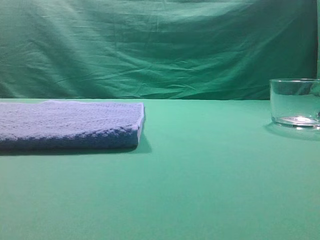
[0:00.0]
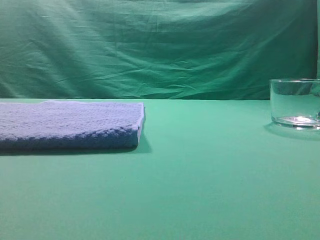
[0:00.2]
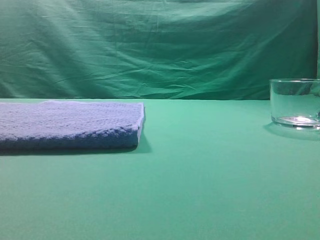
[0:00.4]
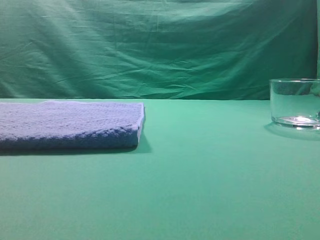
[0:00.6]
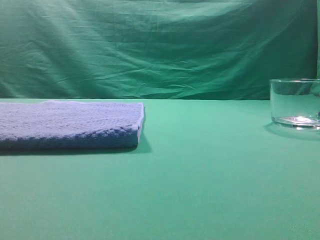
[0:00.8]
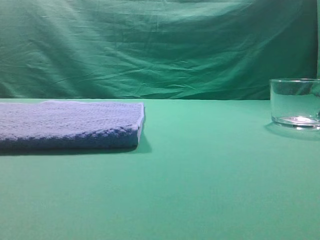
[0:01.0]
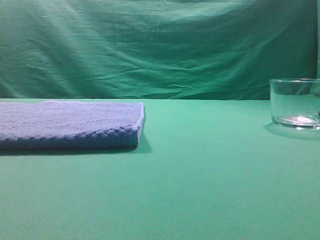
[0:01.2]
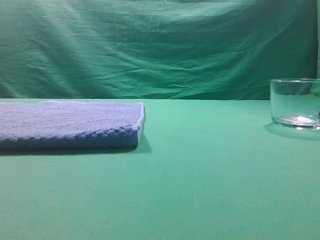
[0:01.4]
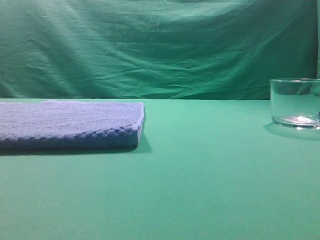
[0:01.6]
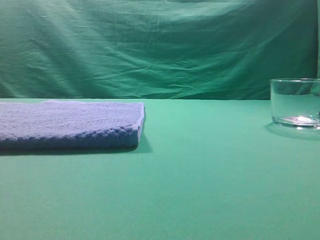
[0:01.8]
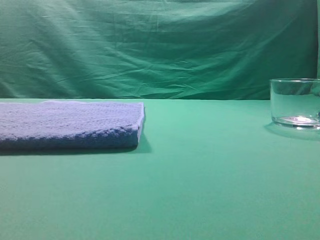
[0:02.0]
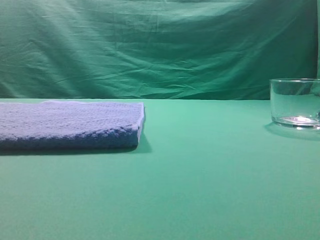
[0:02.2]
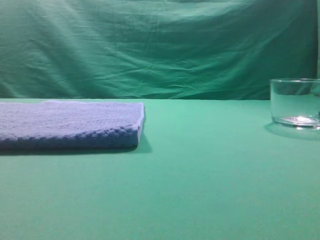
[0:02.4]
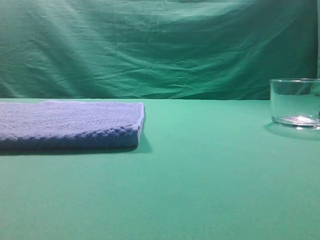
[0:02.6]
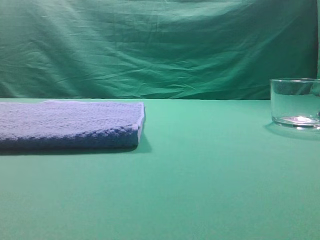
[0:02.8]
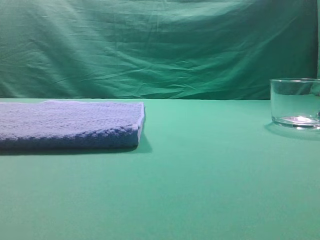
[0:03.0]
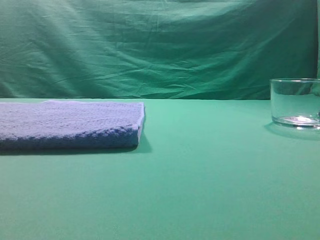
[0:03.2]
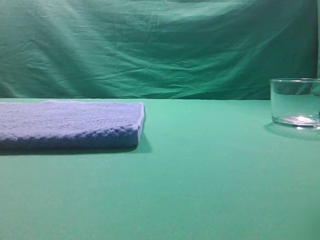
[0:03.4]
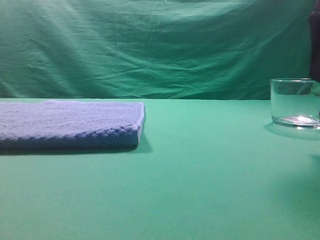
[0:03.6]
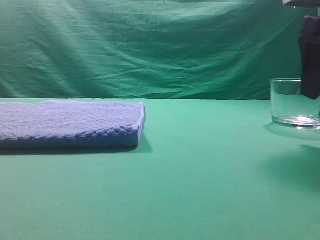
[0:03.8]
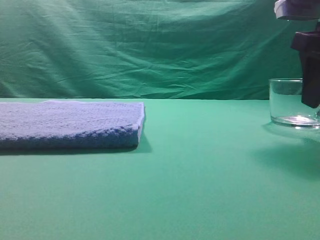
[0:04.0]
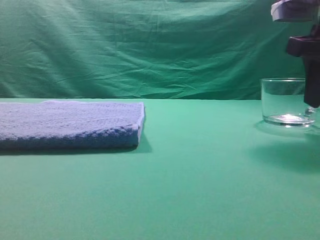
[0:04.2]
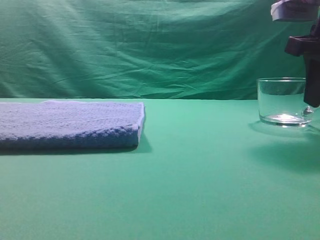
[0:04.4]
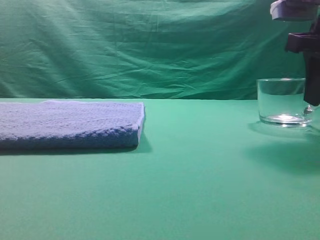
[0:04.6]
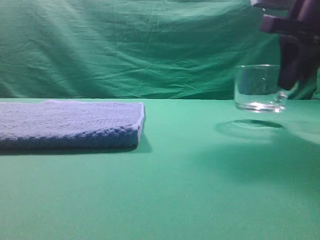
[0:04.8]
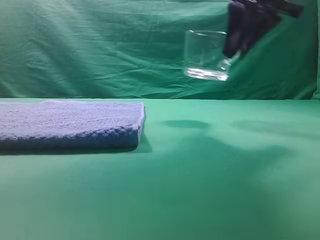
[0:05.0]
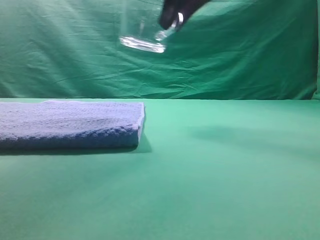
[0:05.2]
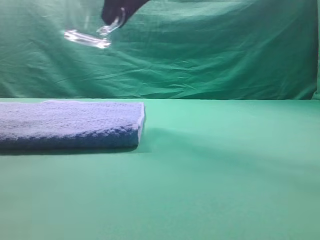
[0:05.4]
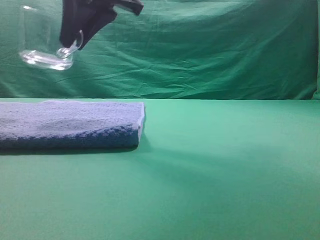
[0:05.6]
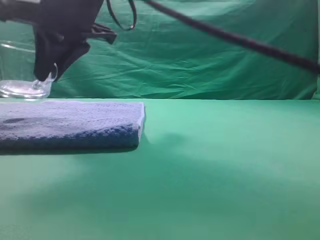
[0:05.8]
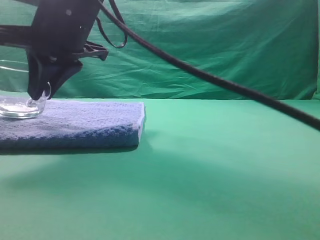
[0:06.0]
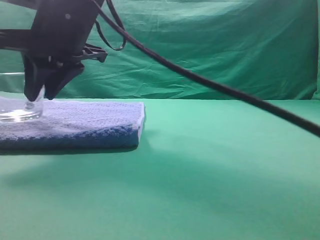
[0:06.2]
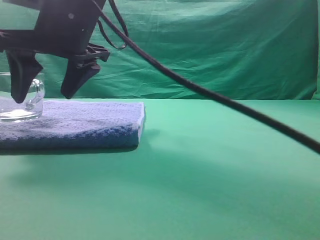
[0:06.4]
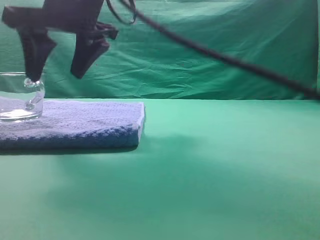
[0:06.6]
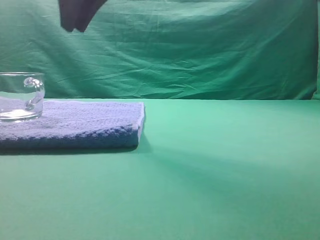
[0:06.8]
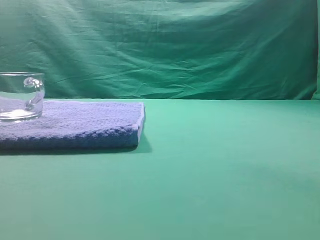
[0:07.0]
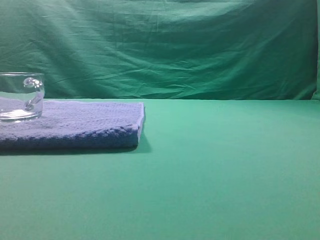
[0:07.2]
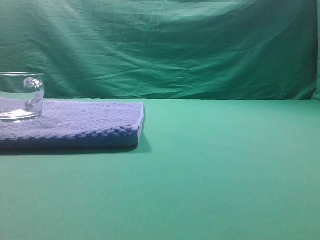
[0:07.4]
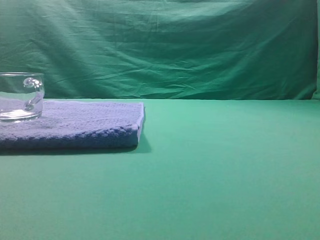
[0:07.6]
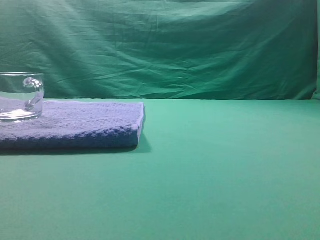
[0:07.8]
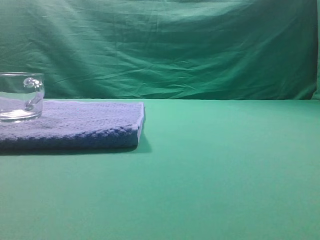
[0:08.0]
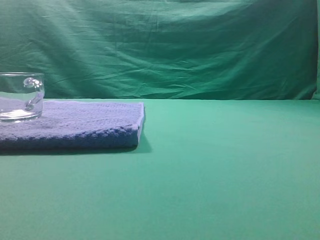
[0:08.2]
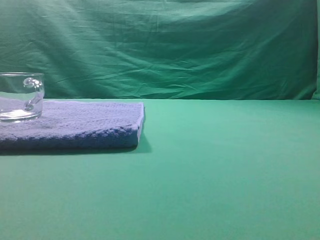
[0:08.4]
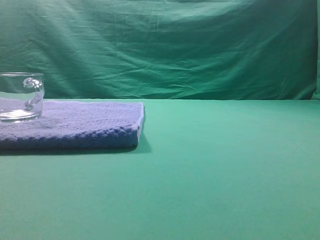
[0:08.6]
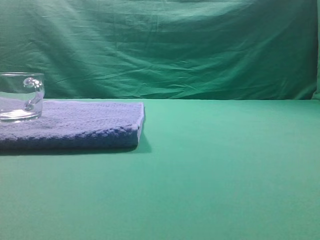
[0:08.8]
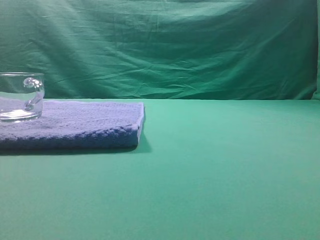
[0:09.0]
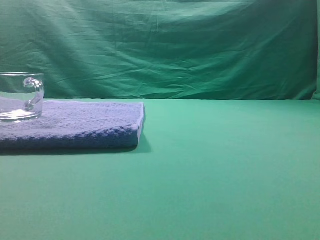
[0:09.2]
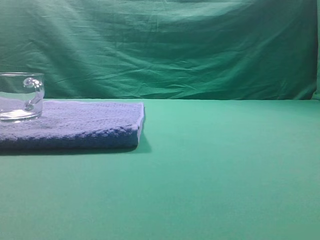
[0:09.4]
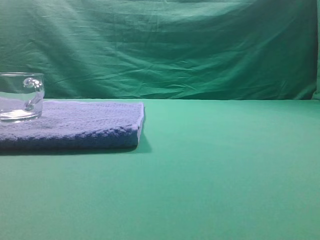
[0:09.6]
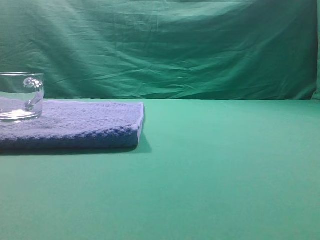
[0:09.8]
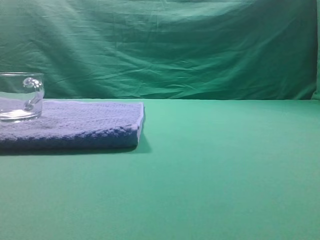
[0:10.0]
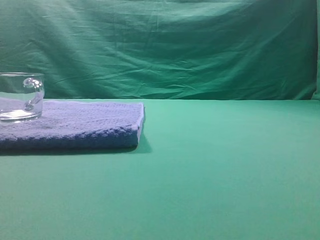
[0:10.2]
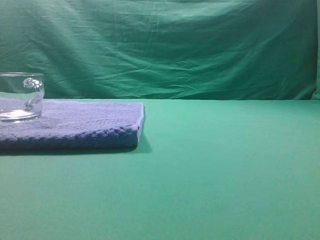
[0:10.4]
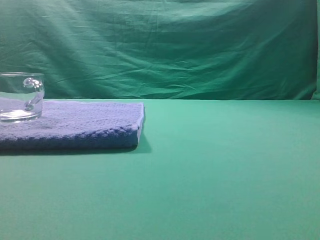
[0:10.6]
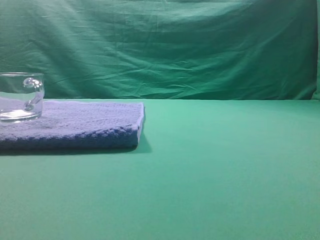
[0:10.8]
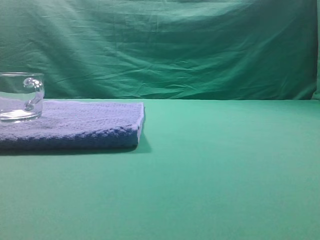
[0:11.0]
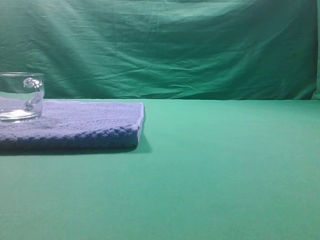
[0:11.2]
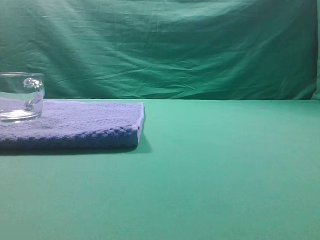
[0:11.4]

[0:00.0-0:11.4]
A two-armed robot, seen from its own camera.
Task of the whole recording: grasp the transparent glass cup and place it within the blue towel.
Step, 0:00.0 to 0:04.8: Grasp the transparent glass cup.
Step, 0:05.0 to 0:06.6: Place the glass cup on the blue zone.

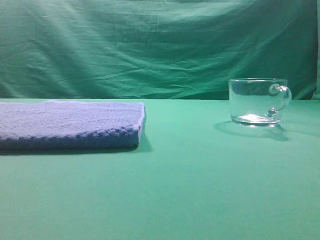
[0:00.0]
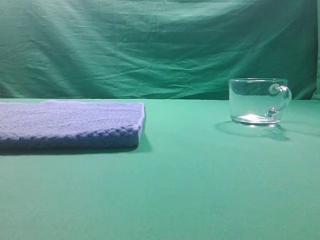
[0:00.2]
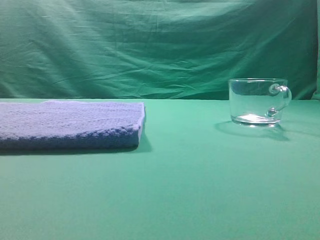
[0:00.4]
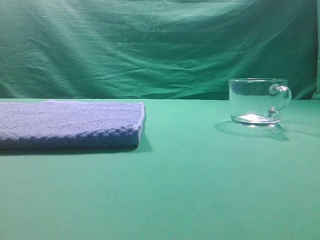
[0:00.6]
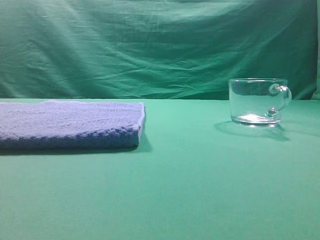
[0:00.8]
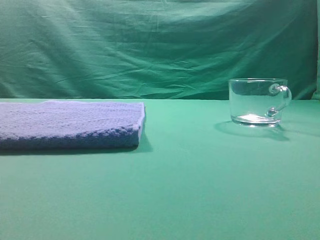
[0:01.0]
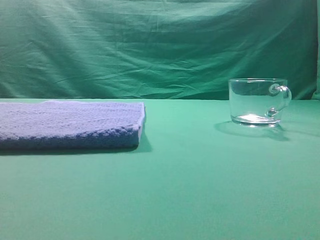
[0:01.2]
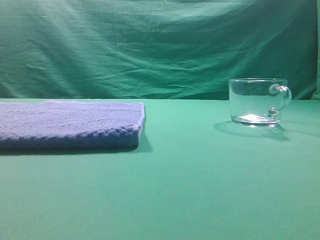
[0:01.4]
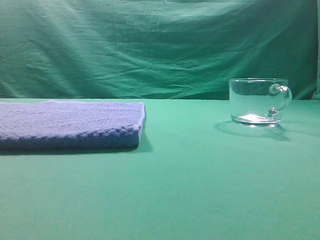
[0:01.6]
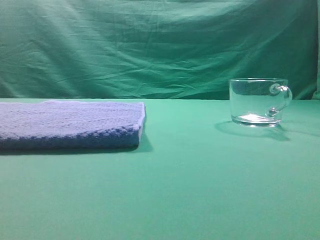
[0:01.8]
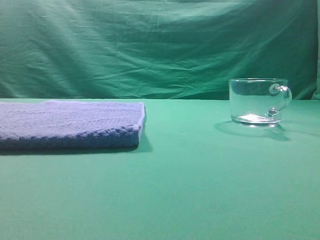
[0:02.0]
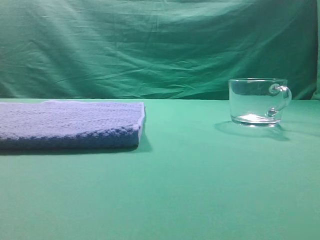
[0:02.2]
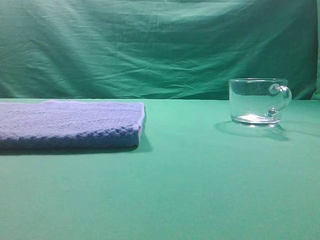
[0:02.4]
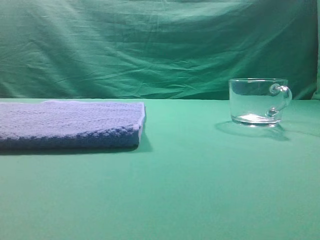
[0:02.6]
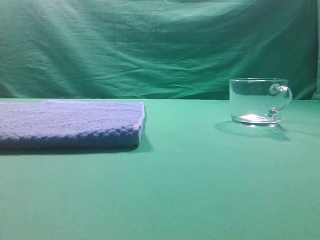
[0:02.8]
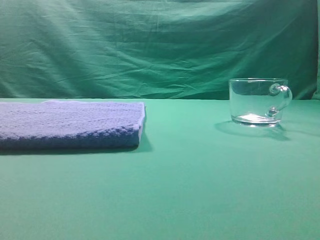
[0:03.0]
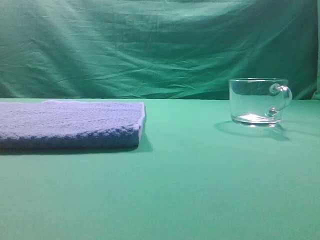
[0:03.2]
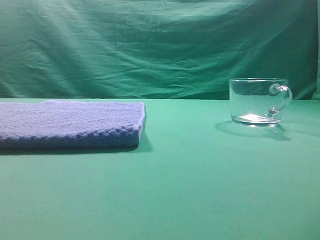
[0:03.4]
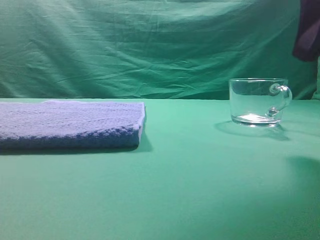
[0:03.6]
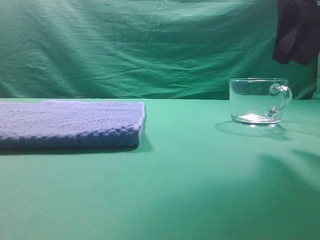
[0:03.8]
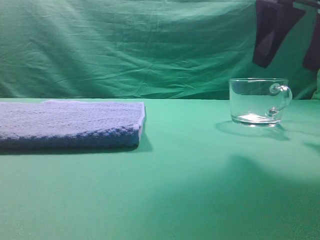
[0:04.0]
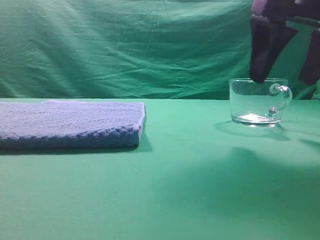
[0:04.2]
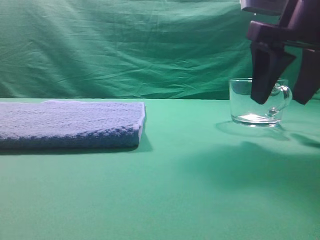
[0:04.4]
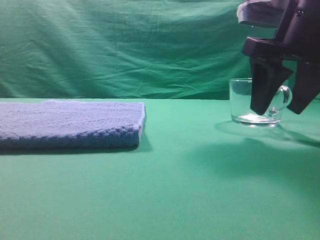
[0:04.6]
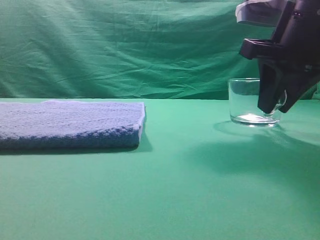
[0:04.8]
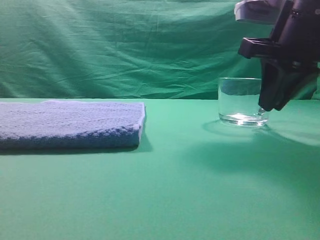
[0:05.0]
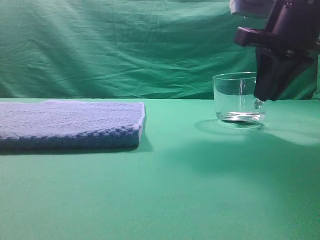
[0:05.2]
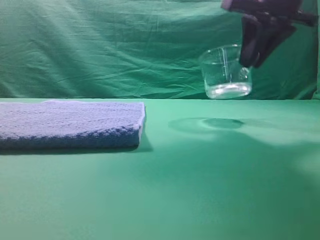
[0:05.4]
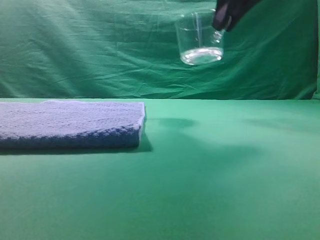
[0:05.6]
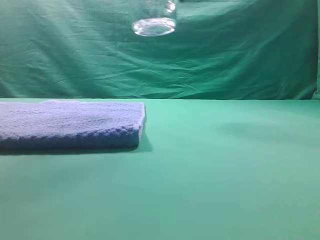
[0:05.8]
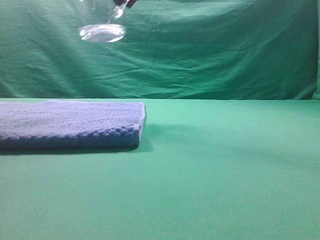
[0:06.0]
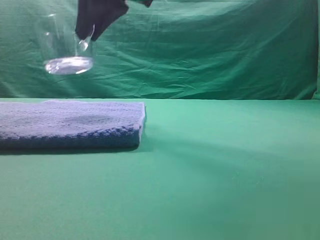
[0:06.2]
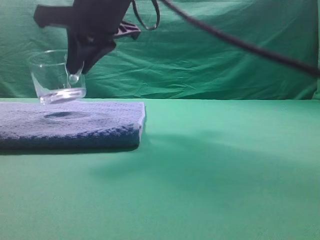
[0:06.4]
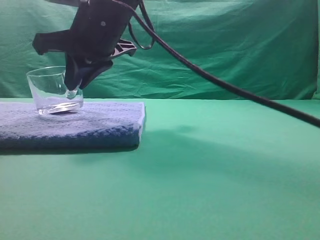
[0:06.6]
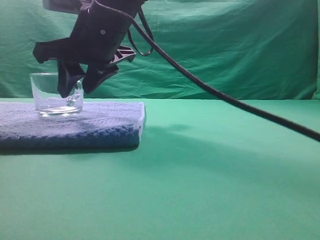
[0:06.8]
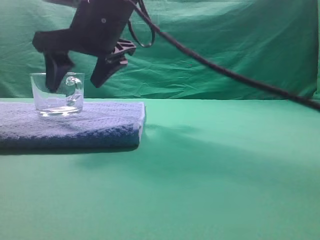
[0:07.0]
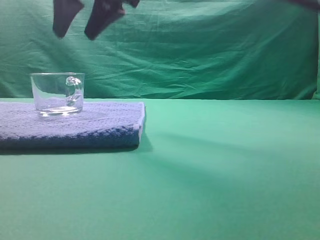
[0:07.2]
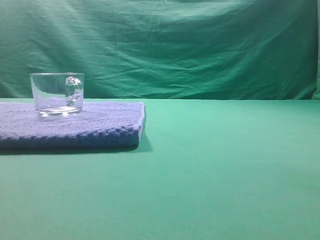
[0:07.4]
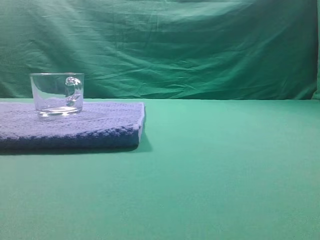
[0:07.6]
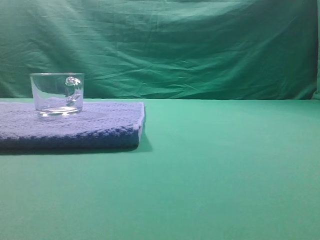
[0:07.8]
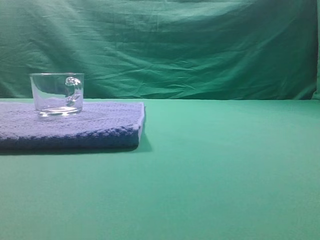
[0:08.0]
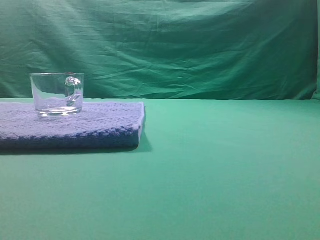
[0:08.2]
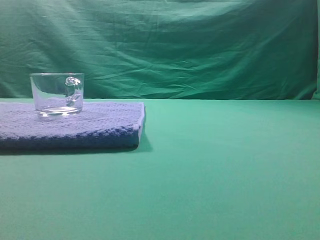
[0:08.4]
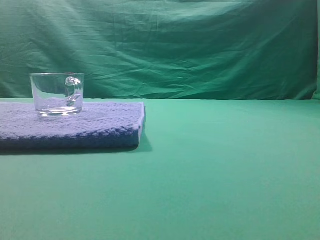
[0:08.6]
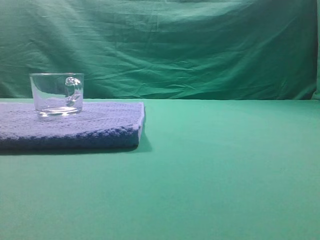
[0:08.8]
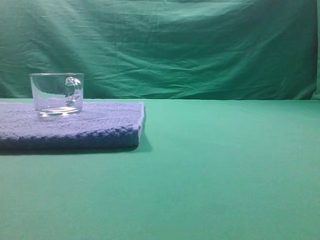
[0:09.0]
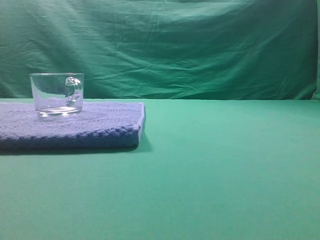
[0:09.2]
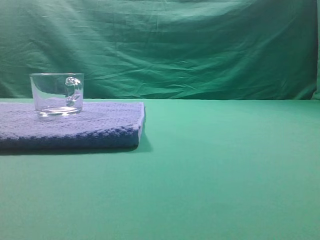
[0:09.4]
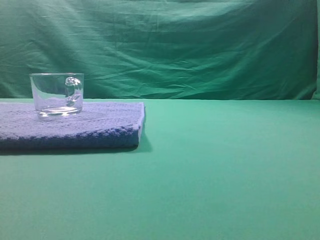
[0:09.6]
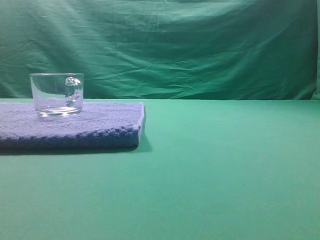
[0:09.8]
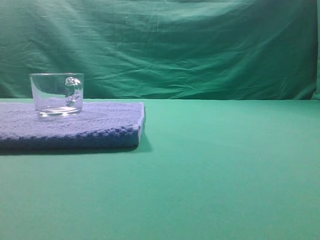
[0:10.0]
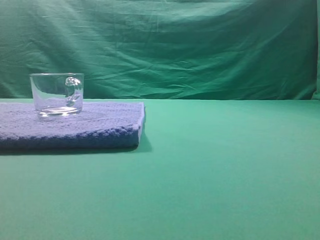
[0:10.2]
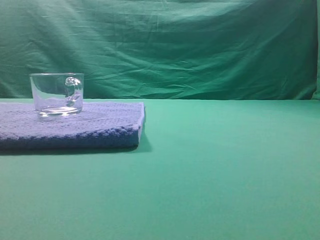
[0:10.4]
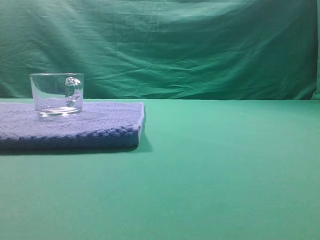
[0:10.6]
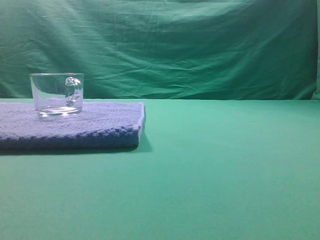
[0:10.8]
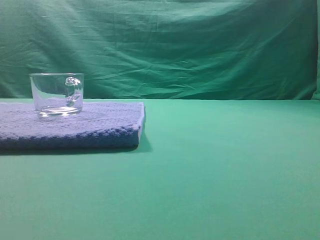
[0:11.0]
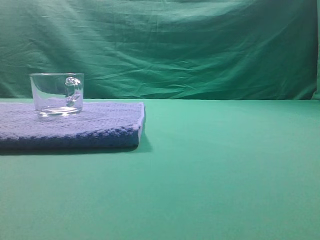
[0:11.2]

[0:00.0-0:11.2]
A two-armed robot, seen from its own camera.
Task of the whole recording: grasp the transparent glass cup and place it within the blue towel.
Step, 0:00.0 to 0:05.2: Grasp the transparent glass cup.
Step, 0:05.4 to 0:07.0: Place the glass cup on the blue zone.
